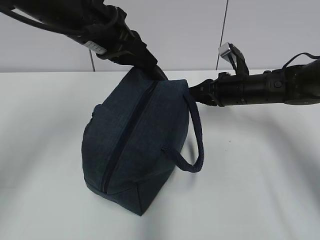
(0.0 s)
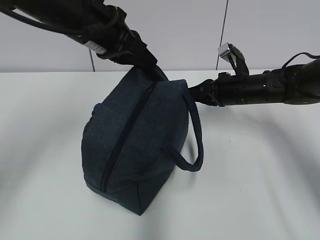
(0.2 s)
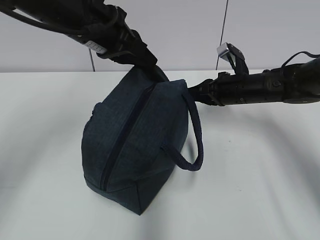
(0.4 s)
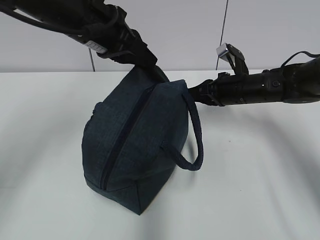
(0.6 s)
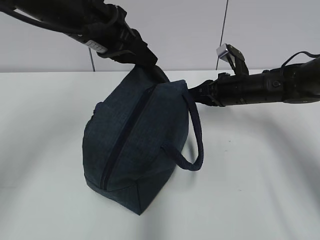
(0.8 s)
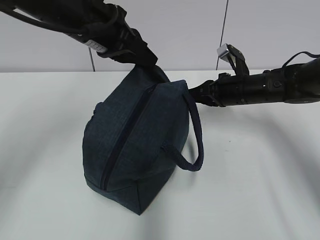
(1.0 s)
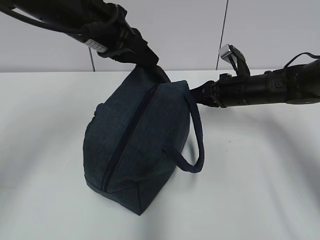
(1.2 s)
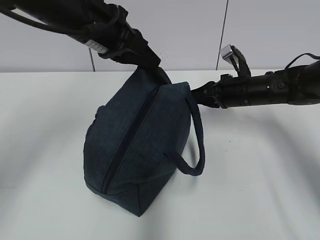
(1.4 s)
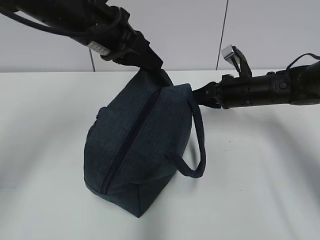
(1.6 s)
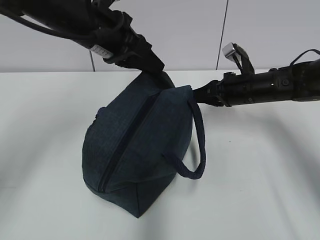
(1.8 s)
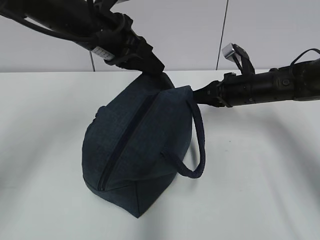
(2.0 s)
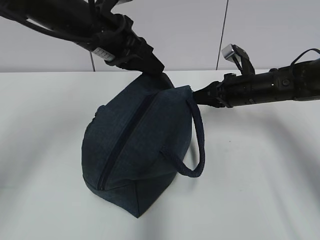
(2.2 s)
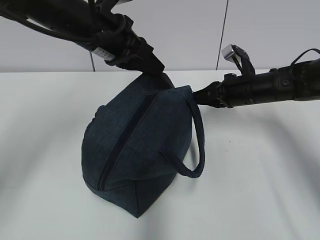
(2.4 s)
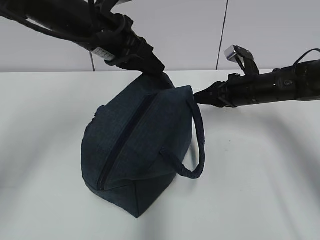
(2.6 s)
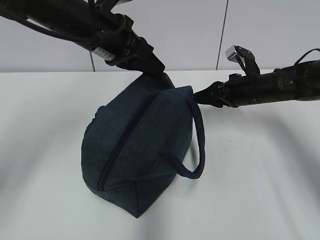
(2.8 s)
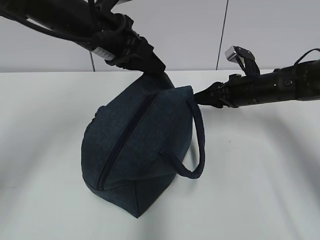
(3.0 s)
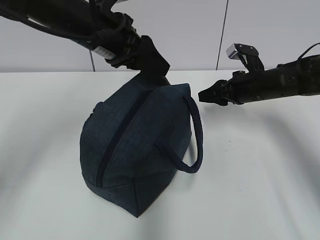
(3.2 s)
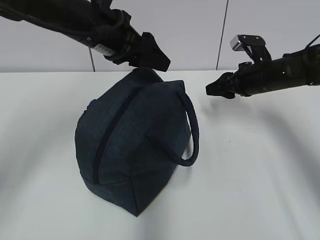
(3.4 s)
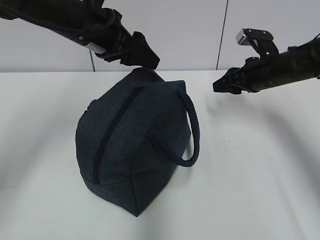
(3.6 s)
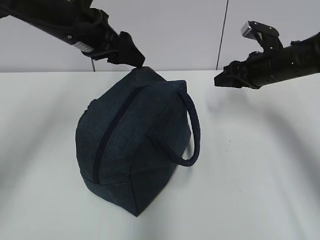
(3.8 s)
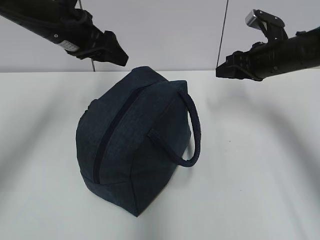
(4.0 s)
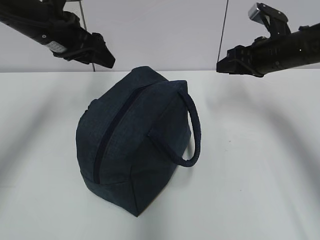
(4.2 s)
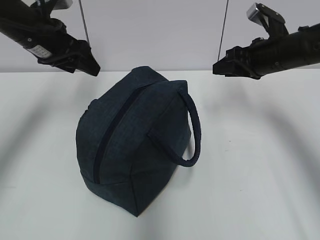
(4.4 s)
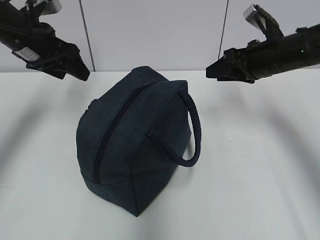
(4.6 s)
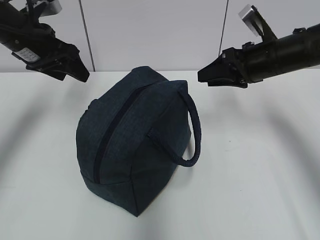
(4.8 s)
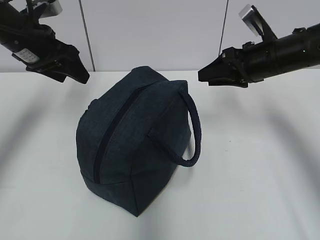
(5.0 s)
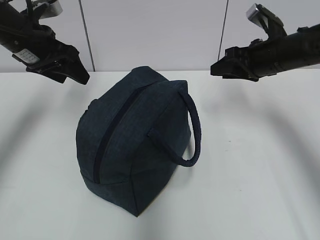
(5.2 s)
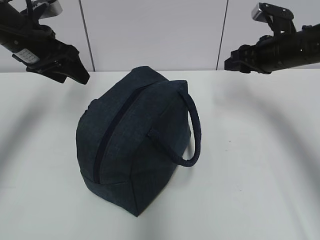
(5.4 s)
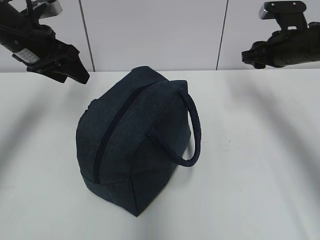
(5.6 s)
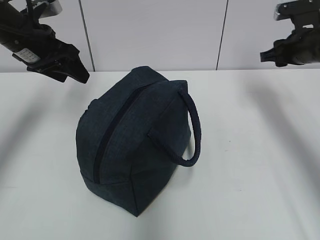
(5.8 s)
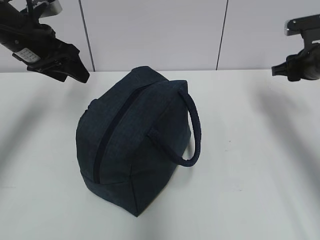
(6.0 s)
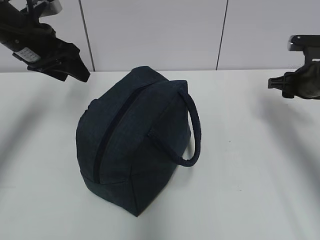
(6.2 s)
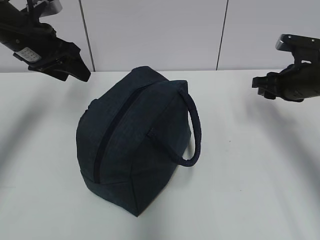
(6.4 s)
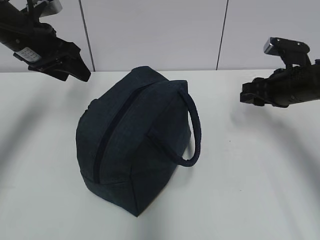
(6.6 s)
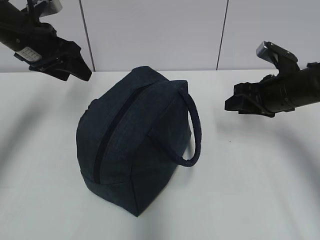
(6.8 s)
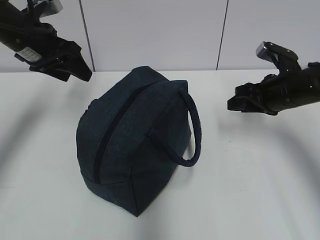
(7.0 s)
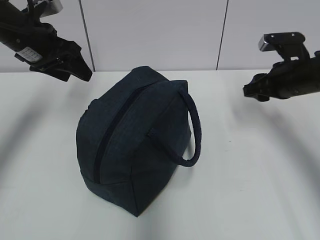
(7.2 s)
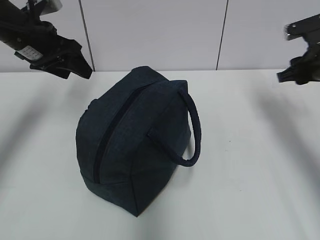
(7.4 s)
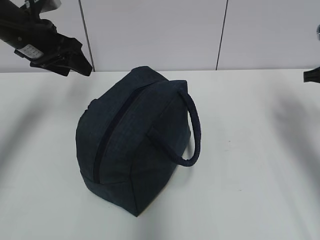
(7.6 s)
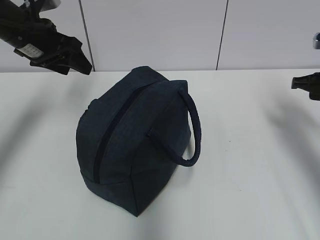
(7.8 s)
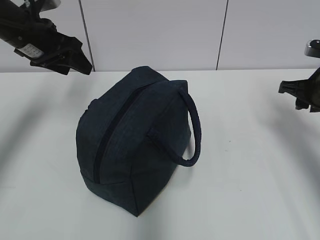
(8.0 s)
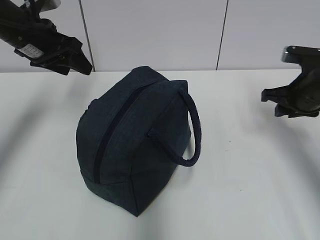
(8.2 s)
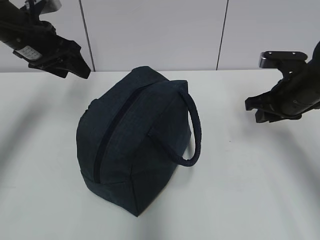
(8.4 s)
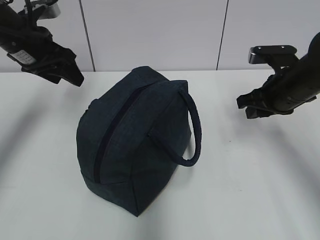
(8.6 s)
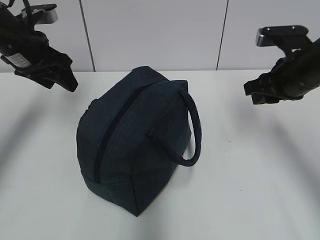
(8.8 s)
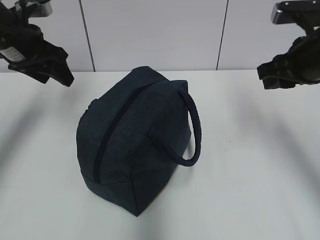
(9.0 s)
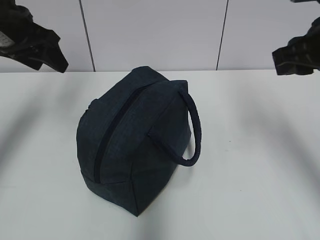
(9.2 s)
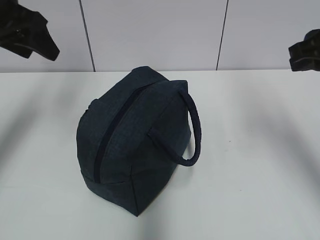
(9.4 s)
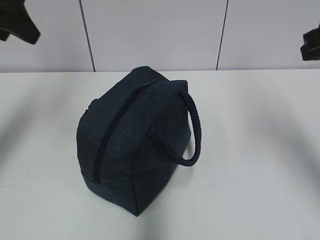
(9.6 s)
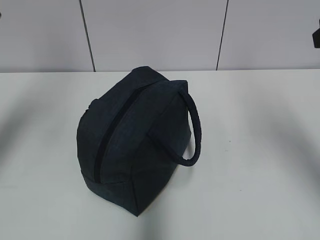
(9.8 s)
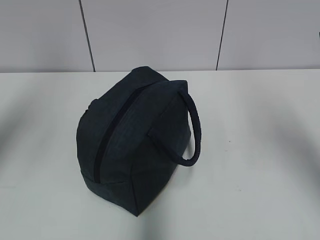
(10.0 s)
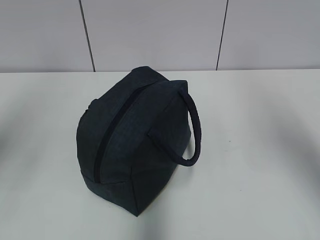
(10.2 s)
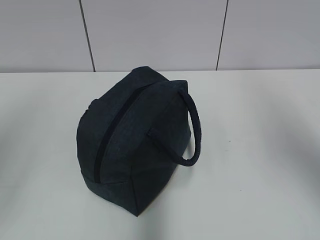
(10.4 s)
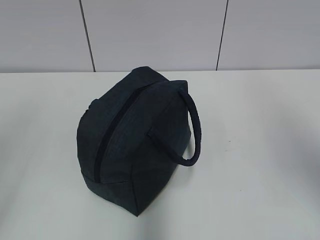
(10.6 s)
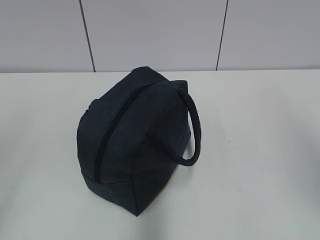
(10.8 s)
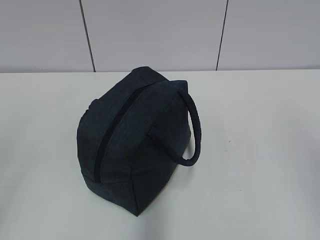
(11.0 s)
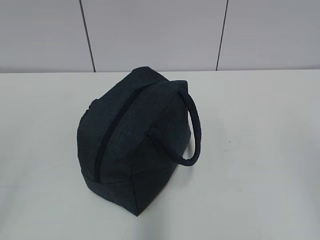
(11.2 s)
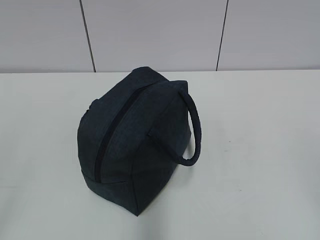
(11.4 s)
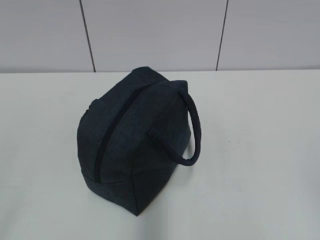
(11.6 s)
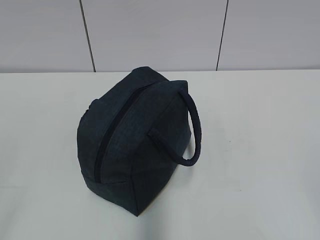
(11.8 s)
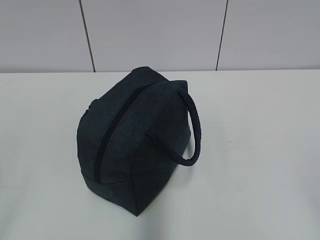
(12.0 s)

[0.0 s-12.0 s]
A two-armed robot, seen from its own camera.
Step, 1.8 to 3.4 s: Grab the lunch bag with your left hand.
0.0 to 1.6 s: Both grippers stay about where they are.
1.6 to 3.0 s: The right gripper opens its fingers.
3.0 to 4.4 s: The left gripper travels to the left by approximately 10 cm, and opens up. The right gripper heads upward, covering about 10 cm.
4.4 to 6.0 s: The right gripper goes some 10 cm to the right.
6.0 to 7.6 s: The right gripper goes to the left and returns, approximately 5 cm each way.
7.6 to 9.0 s: The right gripper heads to the left and upward, covering approximately 10 cm.
9.0 to 10.4 s: The right gripper shifts some 20 cm backward and upward; the left gripper heads backward and upward, covering about 30 cm.
10.4 to 12.0 s: The right gripper moves backward and downward, approximately 25 cm.

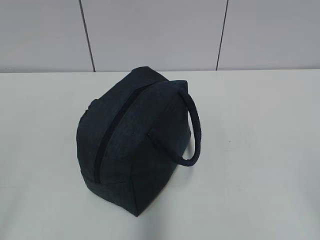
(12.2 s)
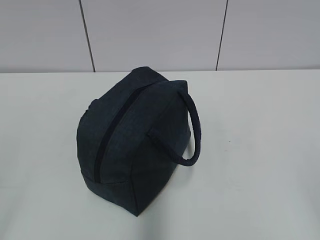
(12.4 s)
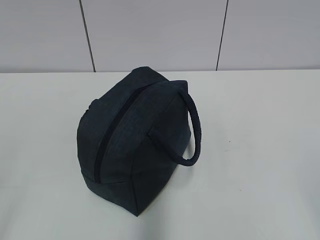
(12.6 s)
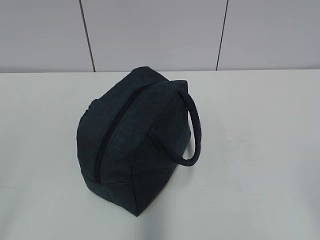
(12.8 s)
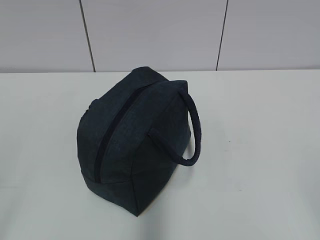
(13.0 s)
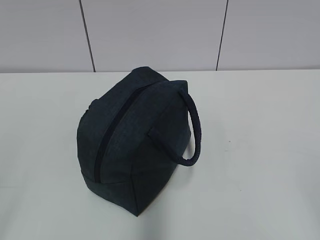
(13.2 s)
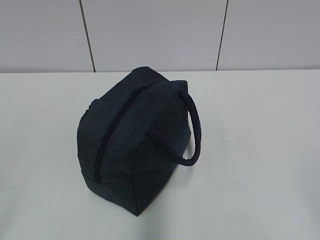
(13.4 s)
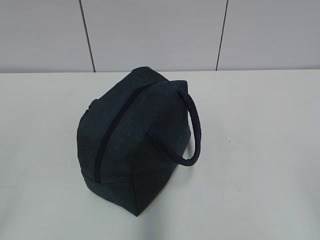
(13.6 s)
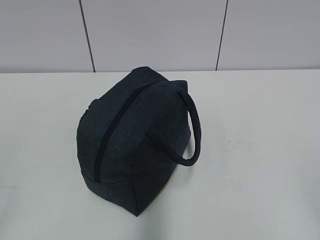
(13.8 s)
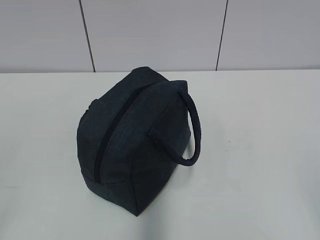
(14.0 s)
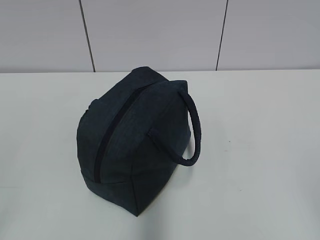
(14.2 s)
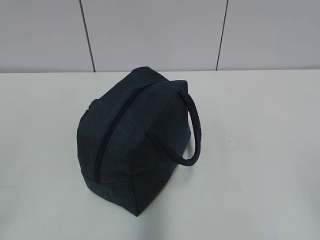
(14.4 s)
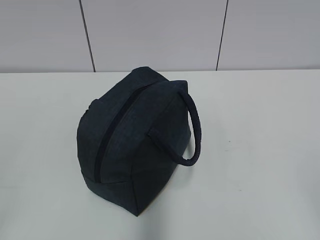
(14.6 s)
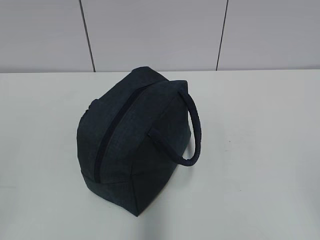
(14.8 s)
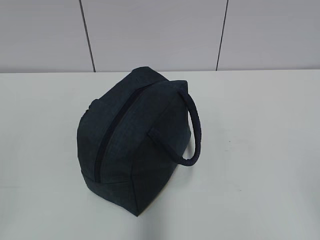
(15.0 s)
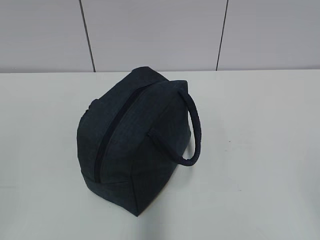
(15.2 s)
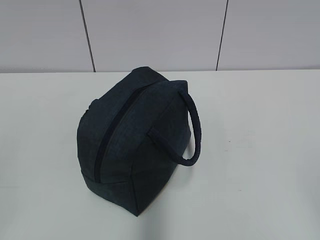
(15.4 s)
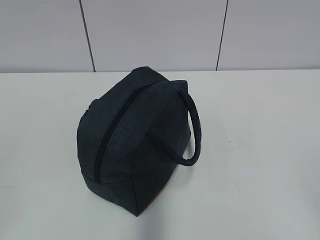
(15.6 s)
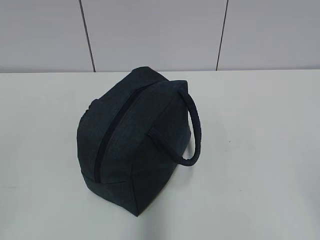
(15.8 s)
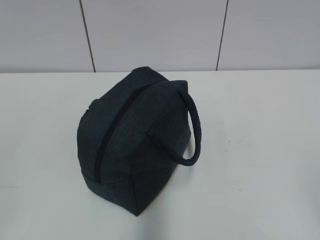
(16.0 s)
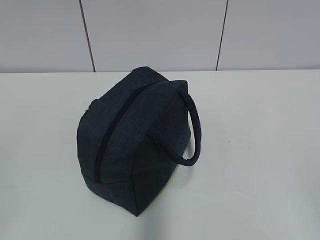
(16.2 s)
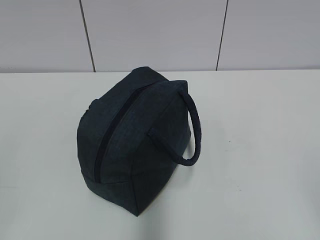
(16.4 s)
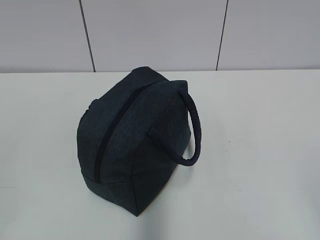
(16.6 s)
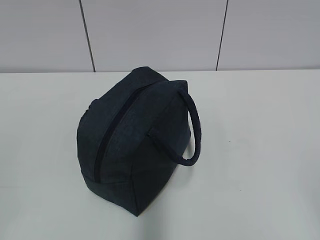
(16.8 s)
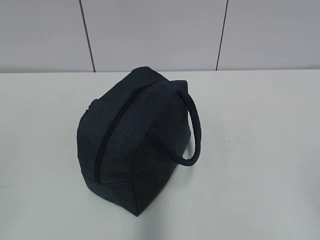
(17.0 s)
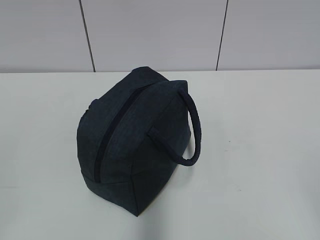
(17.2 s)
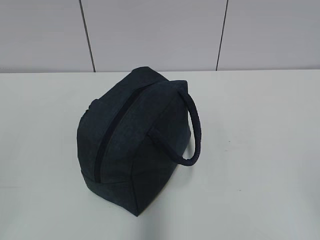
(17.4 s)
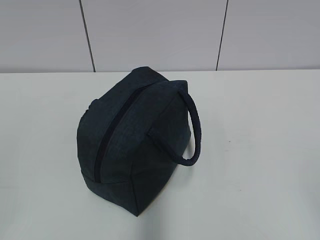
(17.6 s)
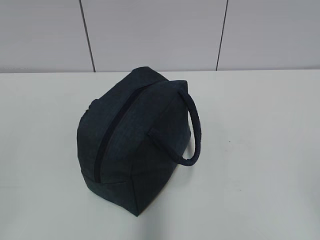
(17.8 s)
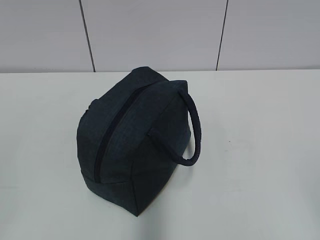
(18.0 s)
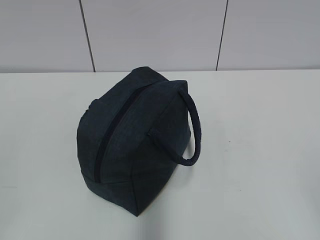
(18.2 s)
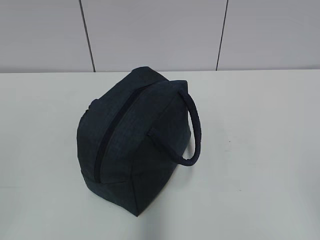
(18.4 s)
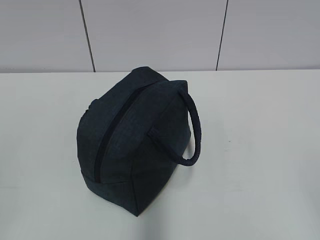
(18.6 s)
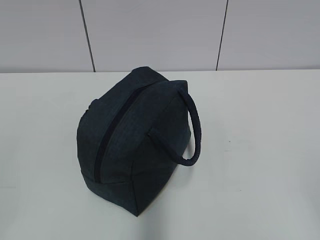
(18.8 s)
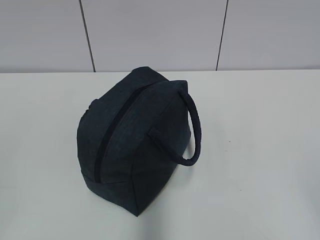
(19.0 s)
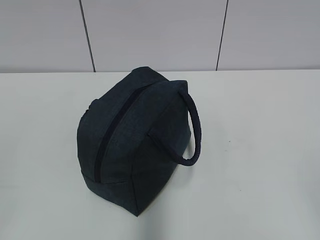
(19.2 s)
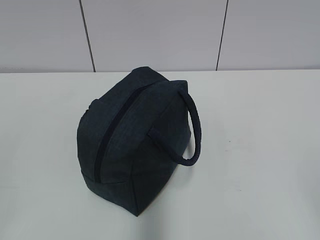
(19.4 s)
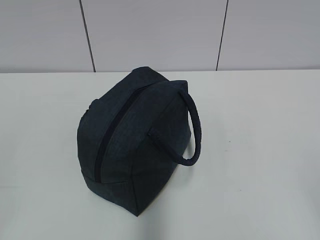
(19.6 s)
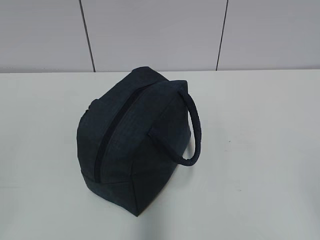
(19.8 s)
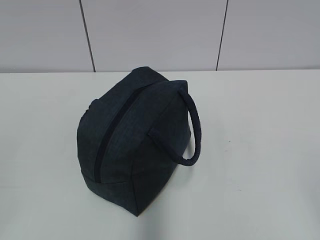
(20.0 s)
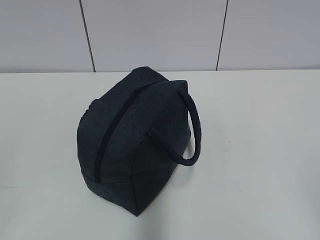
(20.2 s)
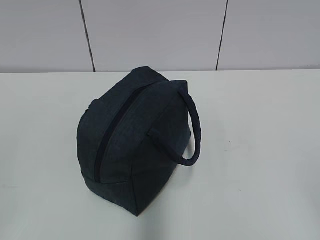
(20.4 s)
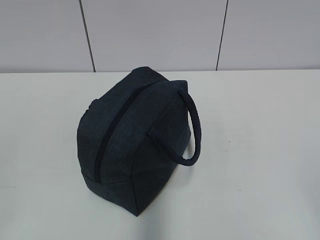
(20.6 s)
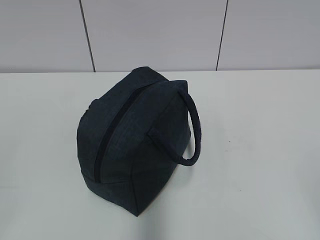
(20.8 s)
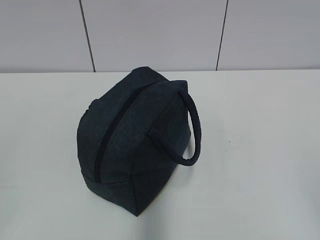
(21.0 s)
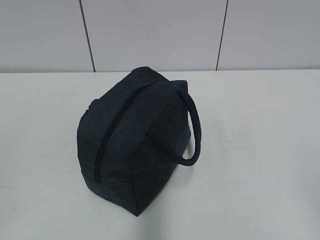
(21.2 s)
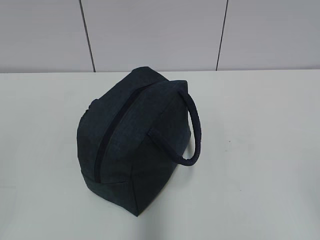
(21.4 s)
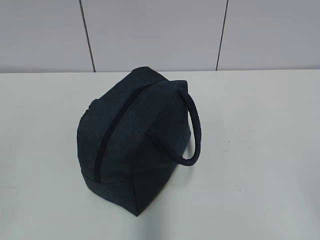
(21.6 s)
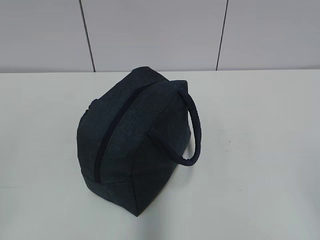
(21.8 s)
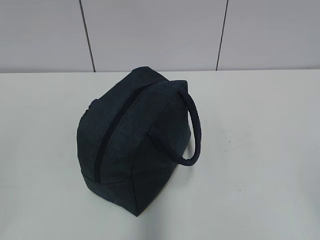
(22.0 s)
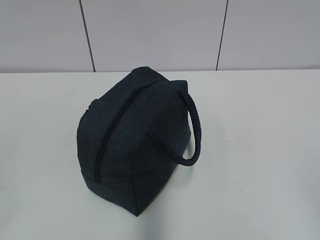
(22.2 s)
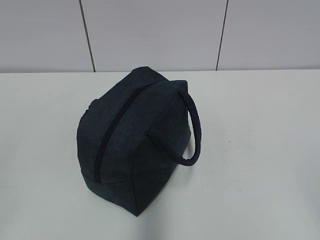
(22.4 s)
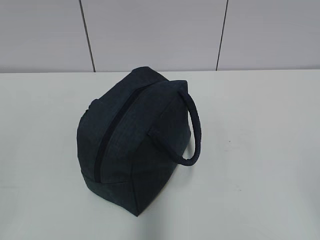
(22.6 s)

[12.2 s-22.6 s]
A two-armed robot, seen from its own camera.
12.2 to 13.6 s: The two grippers keep their place.
13.6 to 15.2 s: Neither gripper changes place.
15.2 to 22.6 s: Both grippers stay put.
